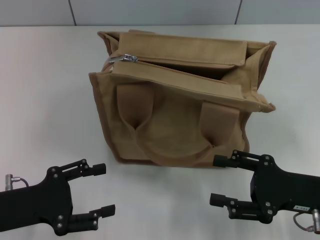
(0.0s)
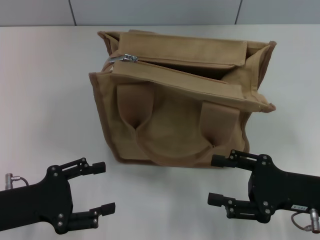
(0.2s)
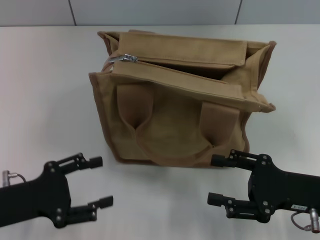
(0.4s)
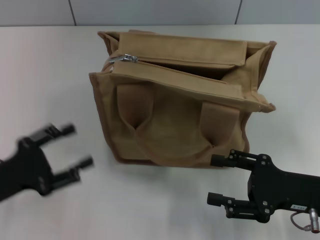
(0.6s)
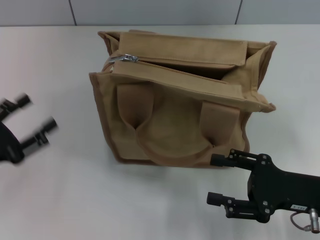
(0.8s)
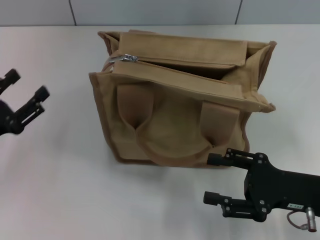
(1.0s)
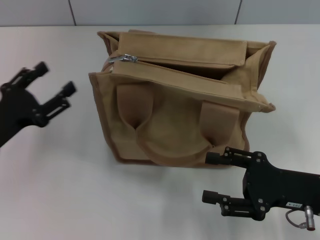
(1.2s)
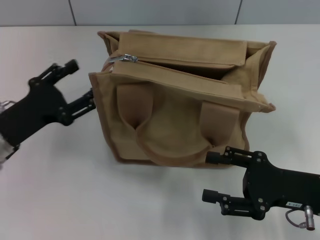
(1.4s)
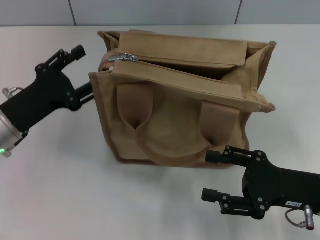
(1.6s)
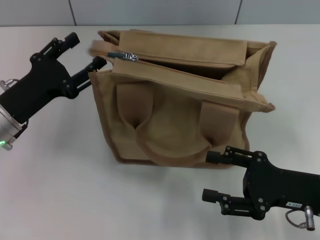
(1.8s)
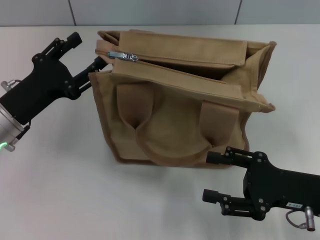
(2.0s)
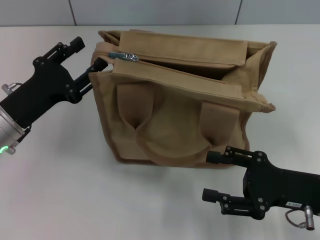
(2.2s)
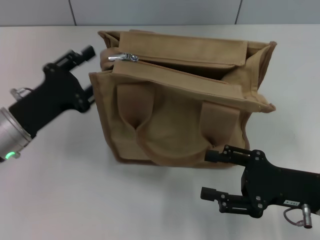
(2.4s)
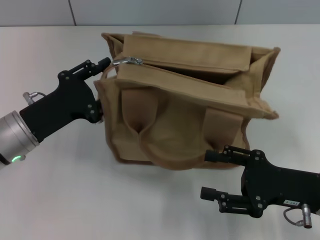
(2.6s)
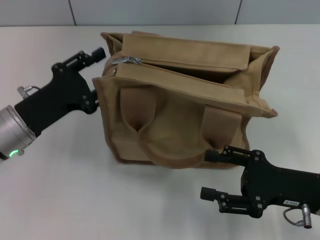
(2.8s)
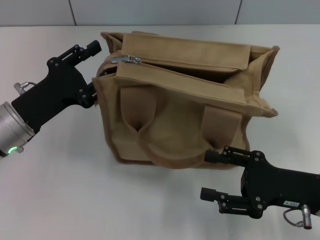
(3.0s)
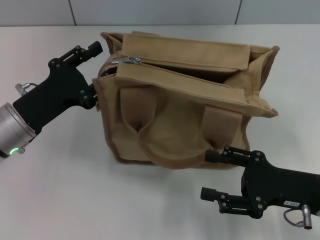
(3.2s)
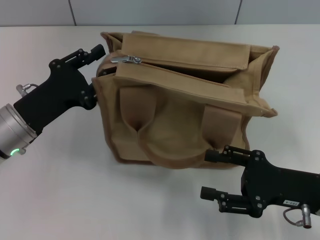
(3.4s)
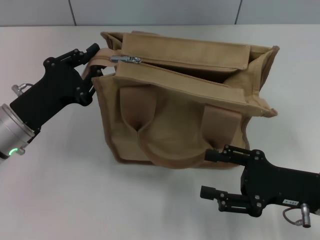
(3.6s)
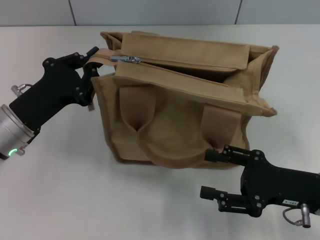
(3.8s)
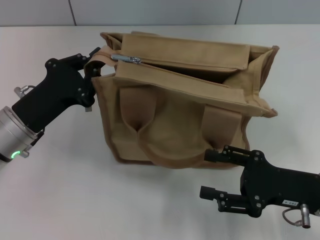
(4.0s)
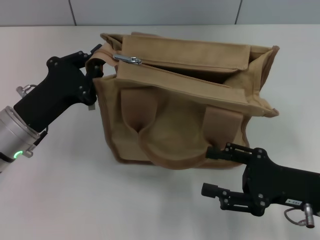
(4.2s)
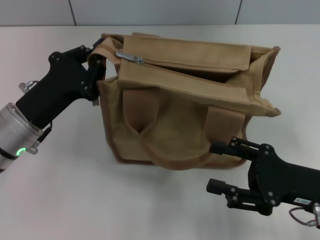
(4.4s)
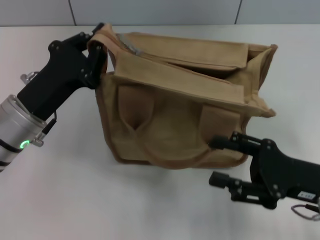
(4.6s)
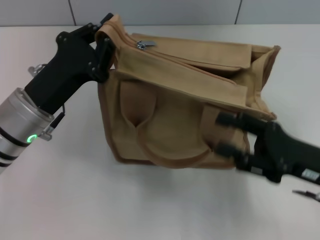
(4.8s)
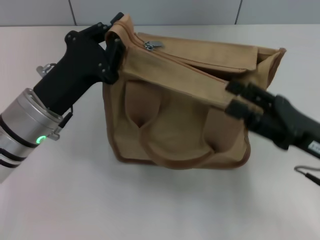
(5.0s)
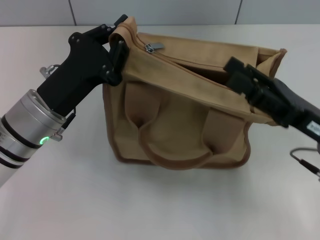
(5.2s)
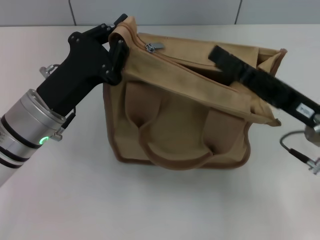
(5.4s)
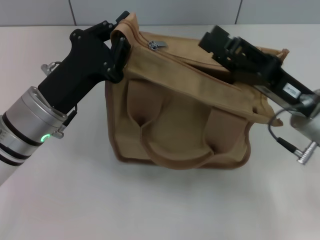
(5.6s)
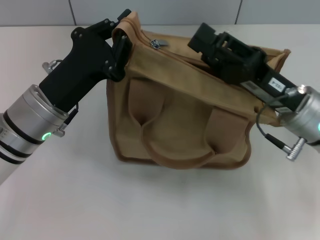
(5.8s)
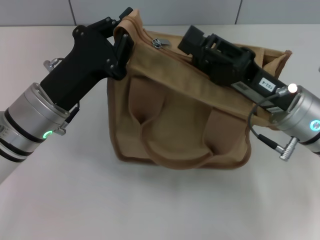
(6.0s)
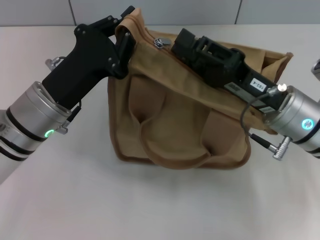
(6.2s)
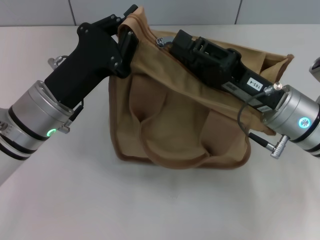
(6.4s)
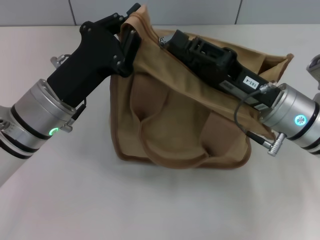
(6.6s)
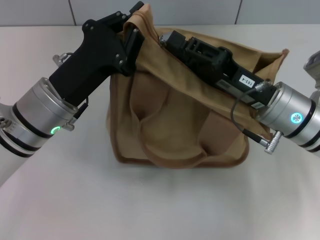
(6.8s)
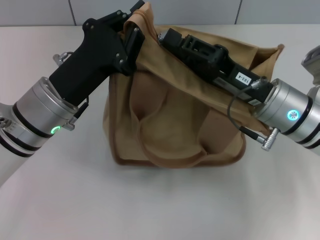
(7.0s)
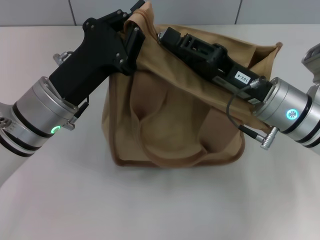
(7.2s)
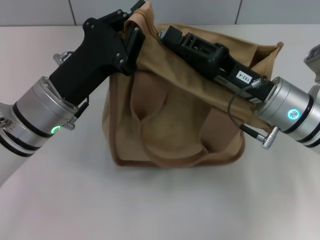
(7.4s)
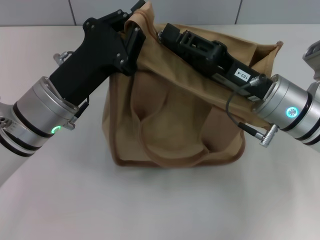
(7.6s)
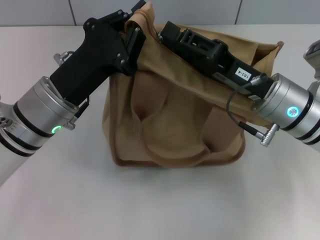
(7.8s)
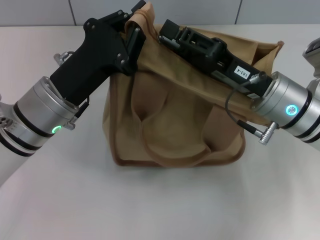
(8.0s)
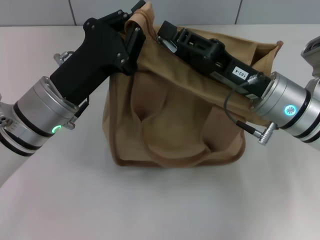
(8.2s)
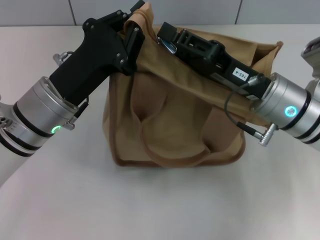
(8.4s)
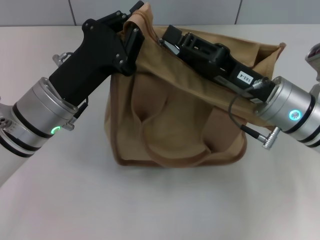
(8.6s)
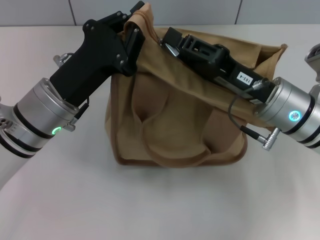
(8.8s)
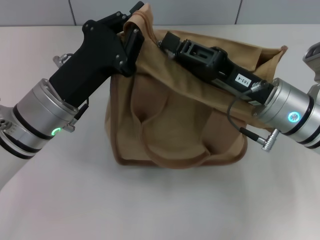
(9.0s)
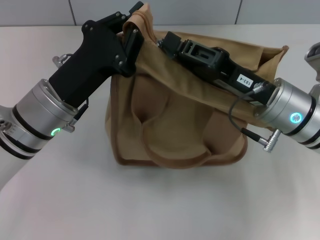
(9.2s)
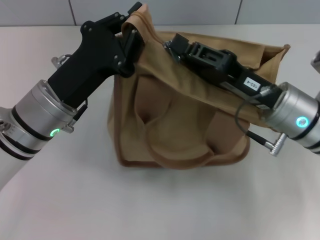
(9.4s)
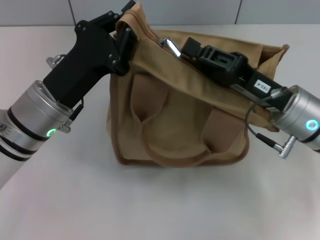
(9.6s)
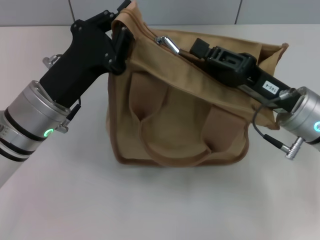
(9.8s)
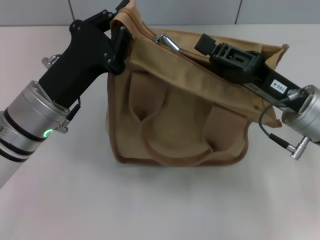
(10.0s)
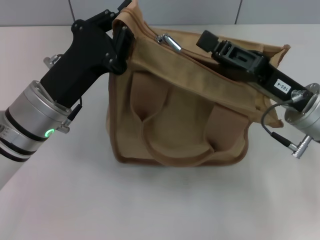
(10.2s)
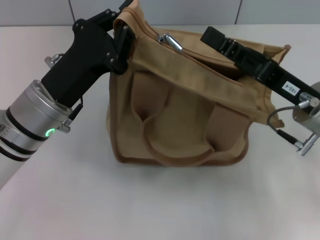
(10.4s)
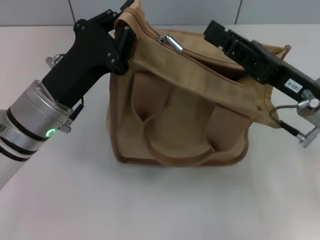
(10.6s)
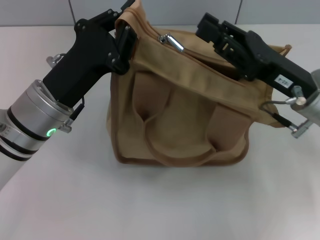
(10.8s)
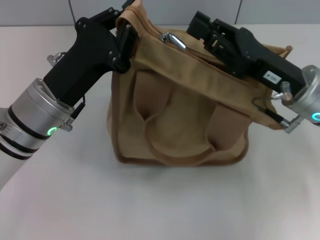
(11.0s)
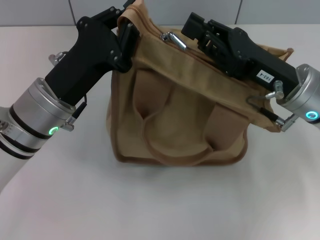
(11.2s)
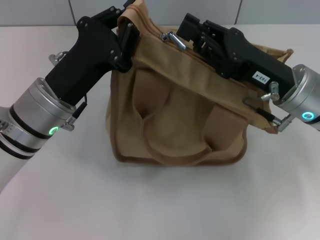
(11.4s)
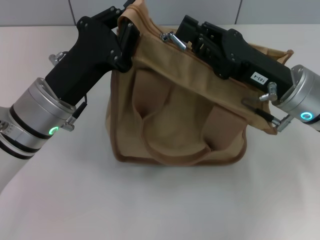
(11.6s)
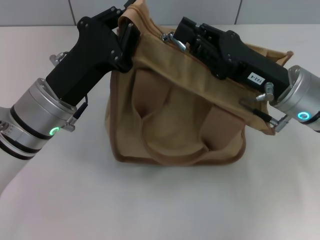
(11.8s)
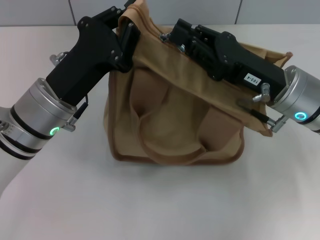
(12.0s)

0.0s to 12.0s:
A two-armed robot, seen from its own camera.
0.0s to 1.6s: The left gripper moves forward, some 10 cm.
1.6s to 3.0s: The grippers move only a little.
3.0s to 4.4s: The left gripper closes its fingers.
4.4s to 6.0s: The right gripper goes some 10 cm forward and to the left, and closes its fingers.
6.0s to 7.6s: The grippers make only small movements.
7.6s to 9.0s: Both grippers stay about where they are.
10.4s to 12.0s: There are only small adjustments of the grippers.

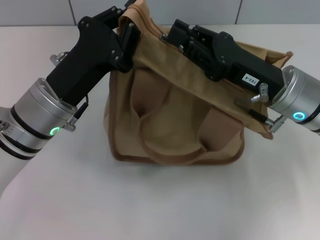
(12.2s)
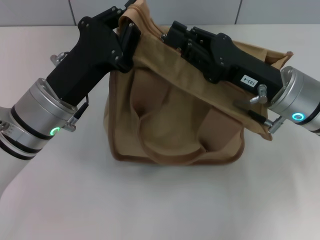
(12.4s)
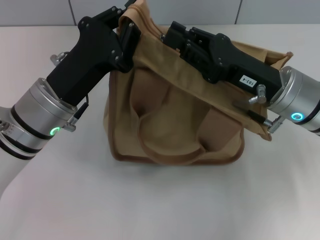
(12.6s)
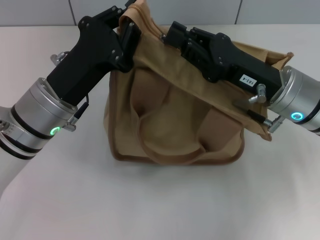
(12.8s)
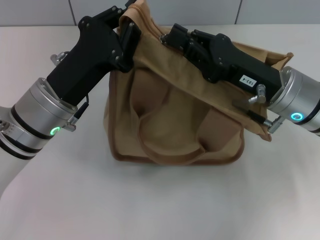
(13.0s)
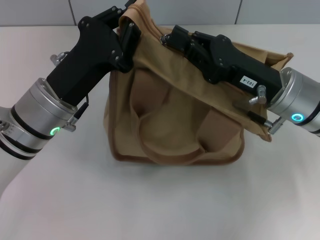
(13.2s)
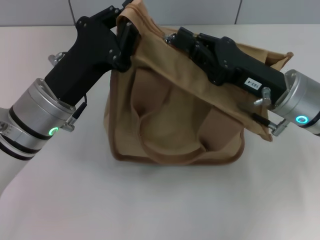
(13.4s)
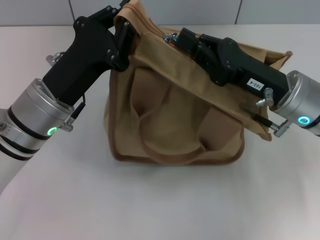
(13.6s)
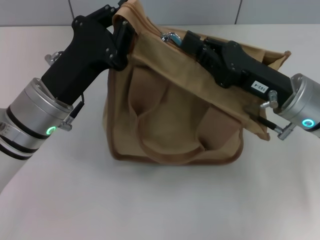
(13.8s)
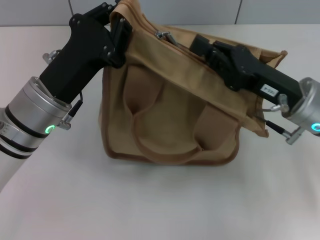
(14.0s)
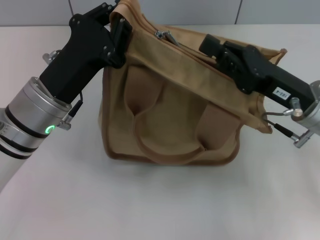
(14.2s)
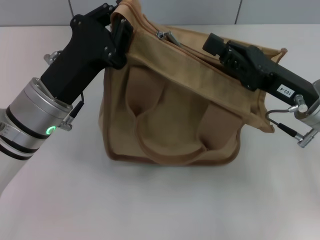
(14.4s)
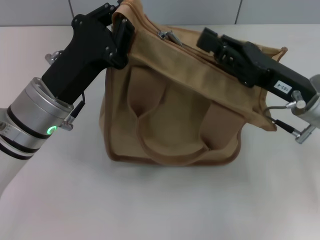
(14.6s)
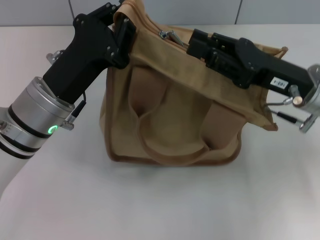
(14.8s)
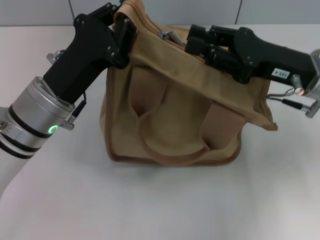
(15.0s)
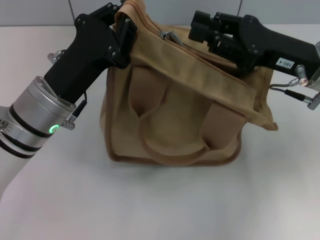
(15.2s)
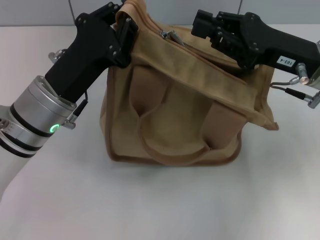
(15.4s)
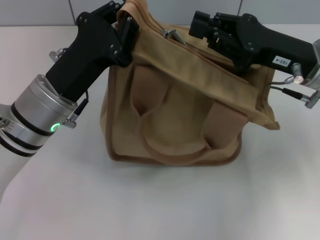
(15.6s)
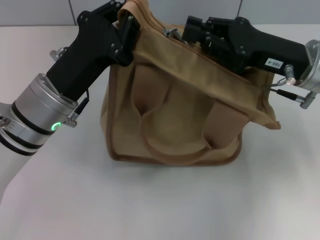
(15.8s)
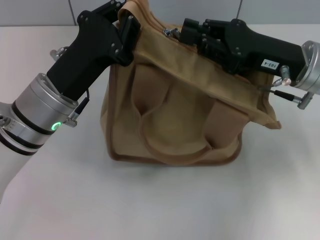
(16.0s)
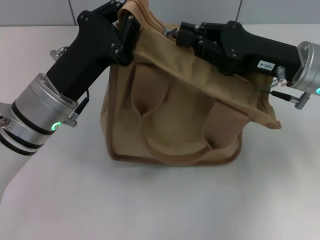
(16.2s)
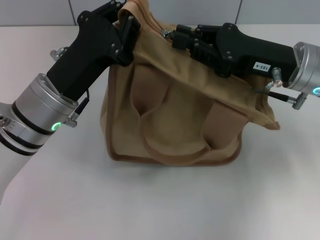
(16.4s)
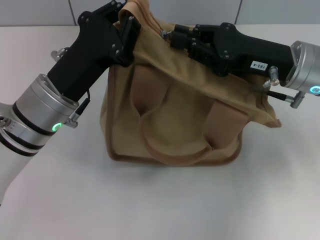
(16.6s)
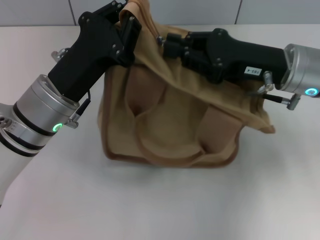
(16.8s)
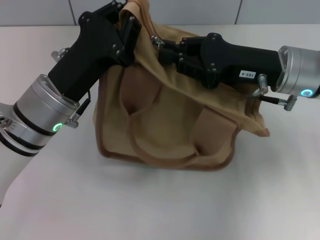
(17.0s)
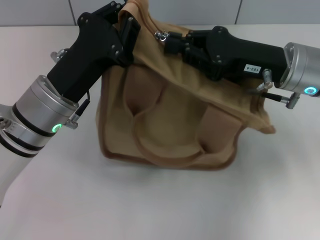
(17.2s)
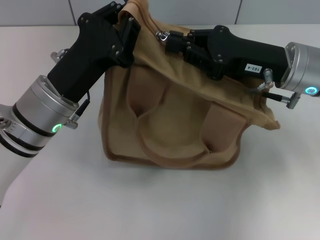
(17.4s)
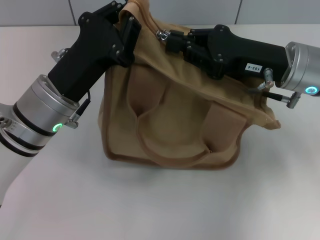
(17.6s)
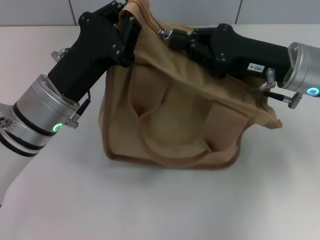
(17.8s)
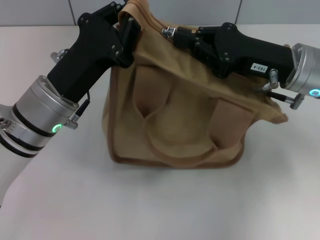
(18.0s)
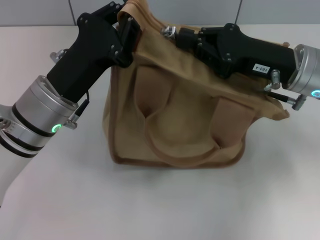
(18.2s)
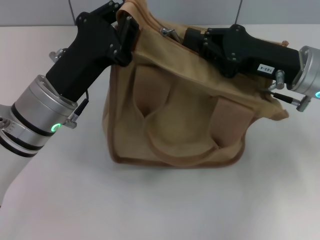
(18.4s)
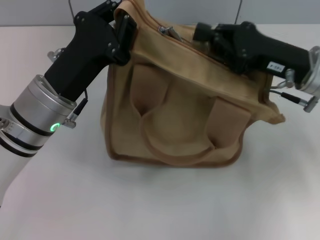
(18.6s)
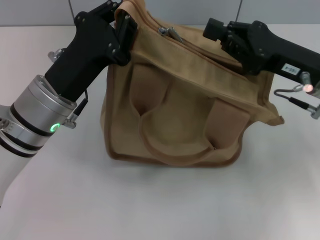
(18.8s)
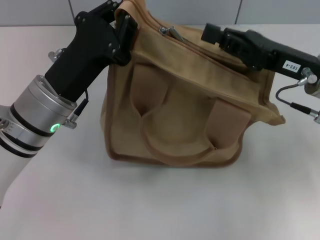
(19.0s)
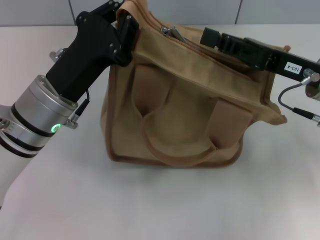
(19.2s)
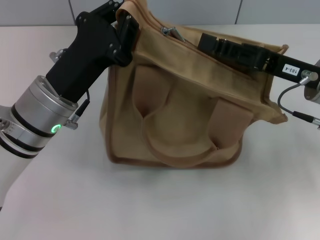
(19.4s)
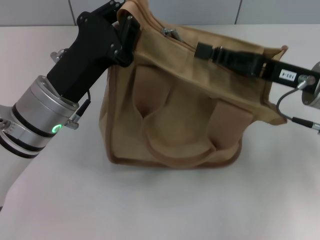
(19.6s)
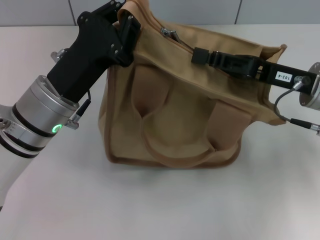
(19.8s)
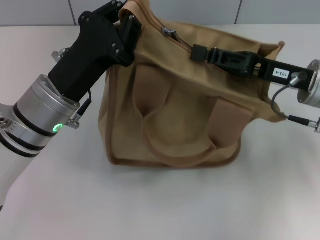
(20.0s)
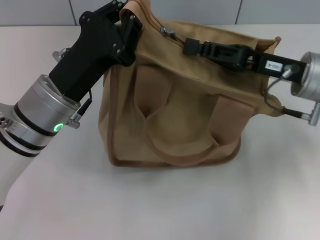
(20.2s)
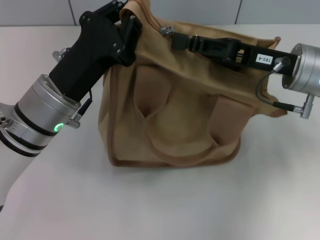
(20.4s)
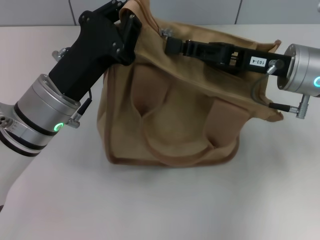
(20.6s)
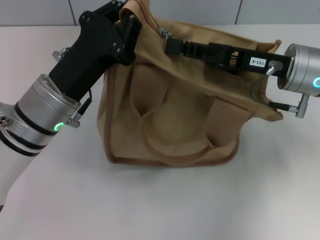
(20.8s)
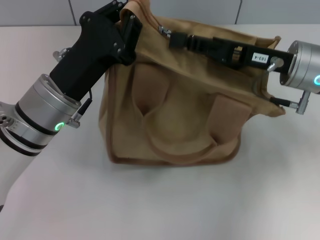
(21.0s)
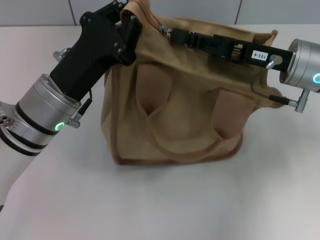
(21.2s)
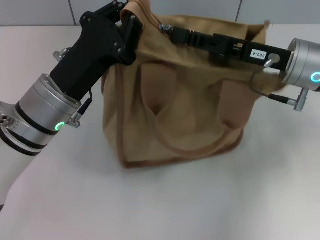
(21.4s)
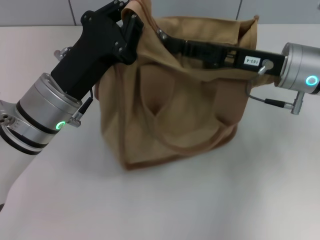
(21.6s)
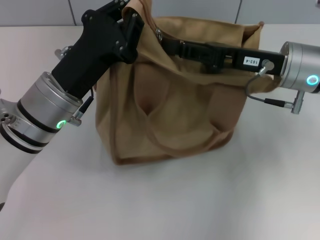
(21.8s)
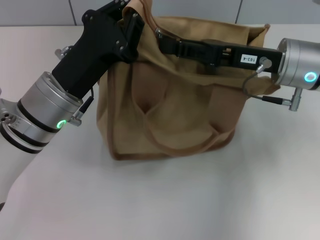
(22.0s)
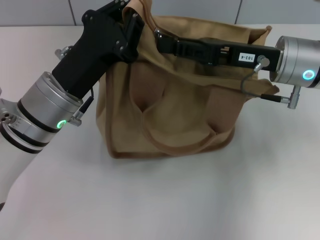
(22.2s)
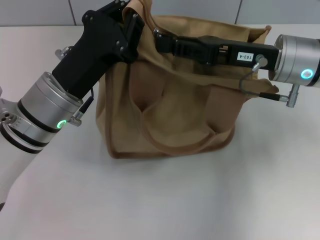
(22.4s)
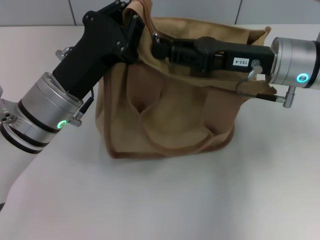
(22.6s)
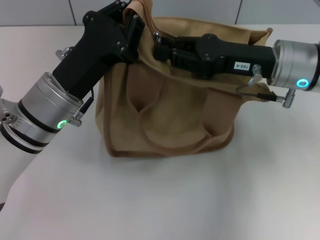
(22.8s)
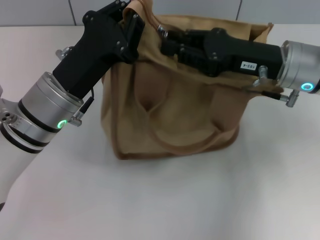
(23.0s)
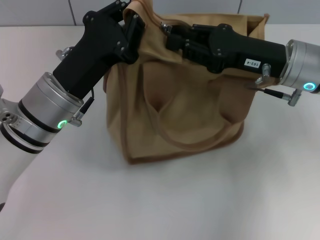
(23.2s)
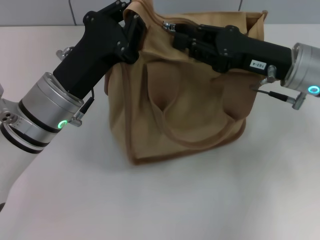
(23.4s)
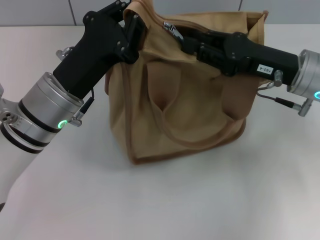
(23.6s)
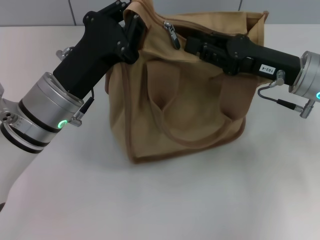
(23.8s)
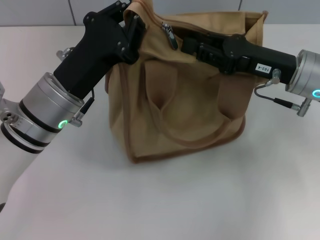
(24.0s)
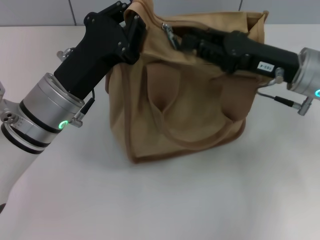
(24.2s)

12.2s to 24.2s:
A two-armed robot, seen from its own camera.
12.2s to 13.8s: The grippers stay close to where they were, moving slightly.
13.8s to 15.2s: The right gripper ends up about 5 cm from where it was, and opens its fingers.
15.2s to 16.6s: The grippers stay close to where they were, moving slightly.
16.6s to 18.2s: Neither gripper changes place.
18.2s to 19.8s: The right gripper opens.
19.8s to 21.2s: The grippers move only a little.
21.2s to 22.6s: There are only small adjustments of the grippers.
22.6s to 24.2s: There are only small adjustments of the grippers.
